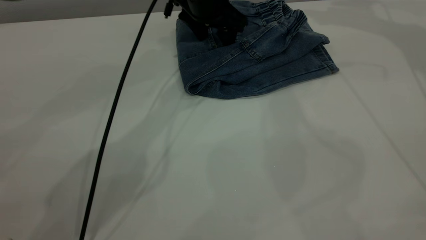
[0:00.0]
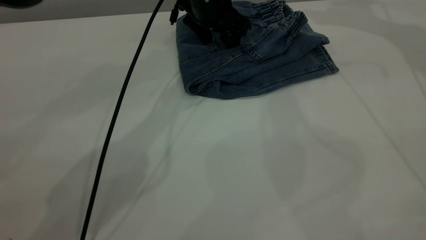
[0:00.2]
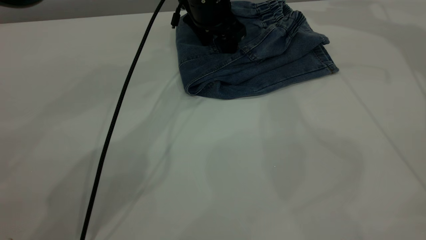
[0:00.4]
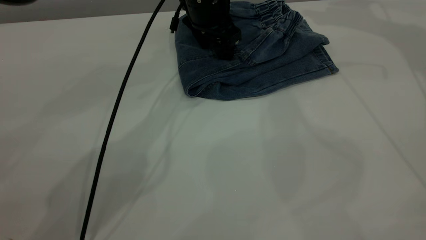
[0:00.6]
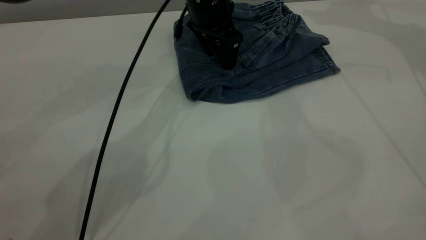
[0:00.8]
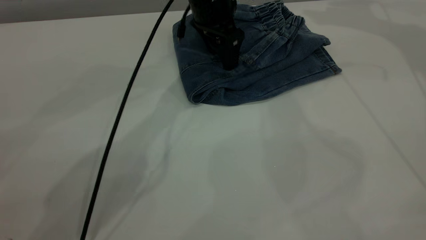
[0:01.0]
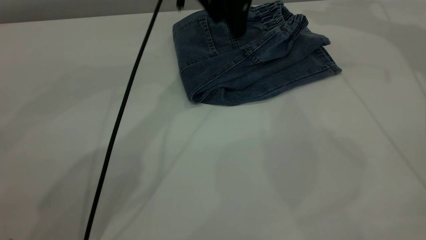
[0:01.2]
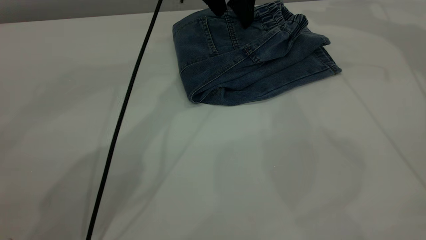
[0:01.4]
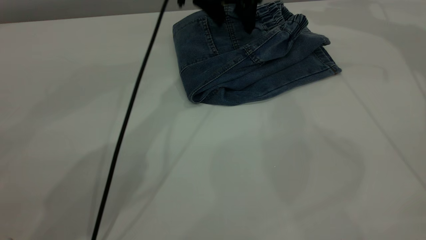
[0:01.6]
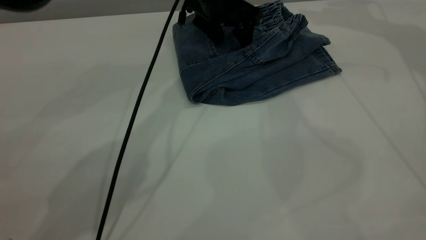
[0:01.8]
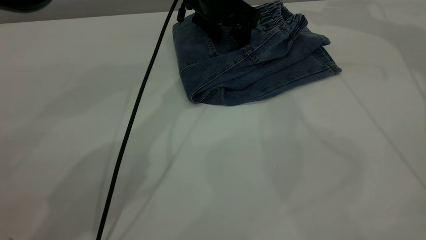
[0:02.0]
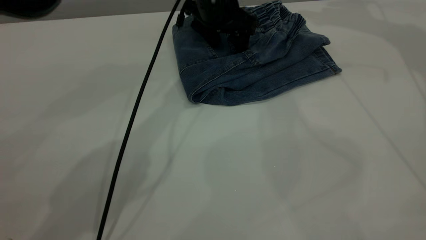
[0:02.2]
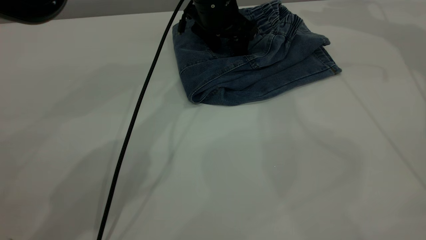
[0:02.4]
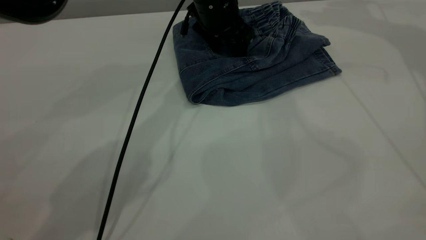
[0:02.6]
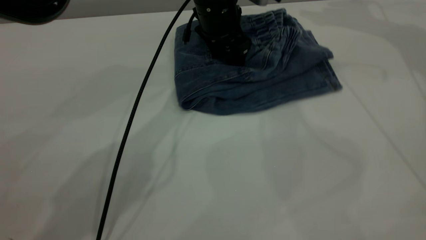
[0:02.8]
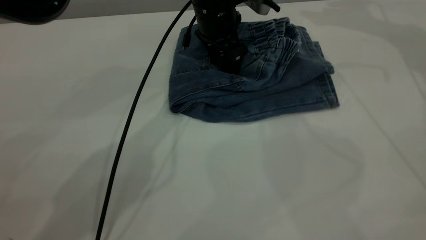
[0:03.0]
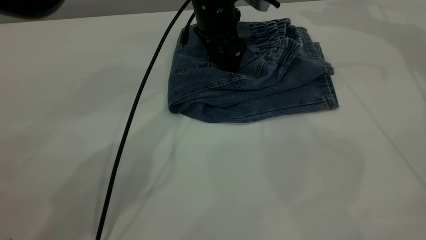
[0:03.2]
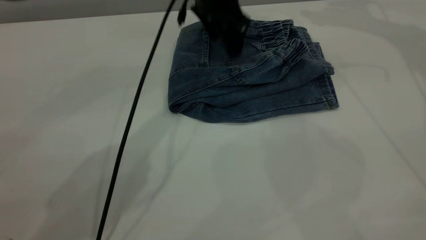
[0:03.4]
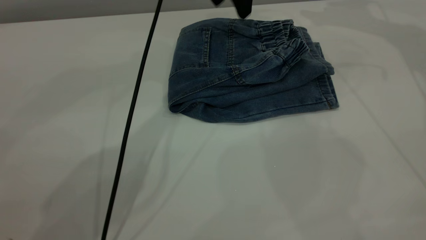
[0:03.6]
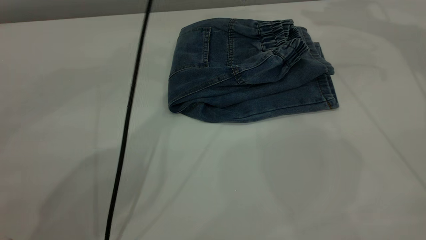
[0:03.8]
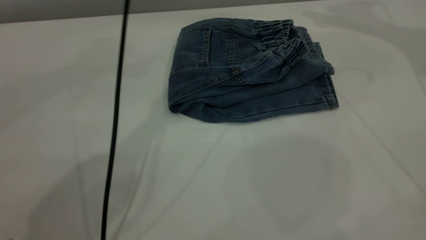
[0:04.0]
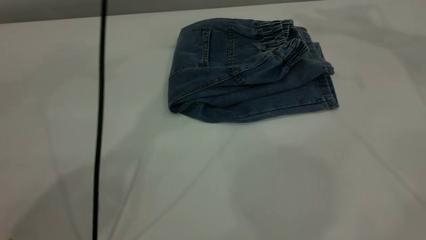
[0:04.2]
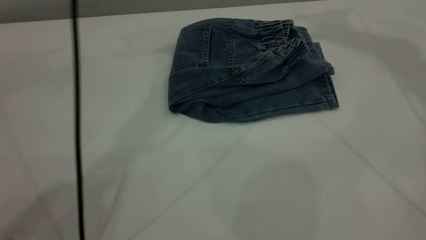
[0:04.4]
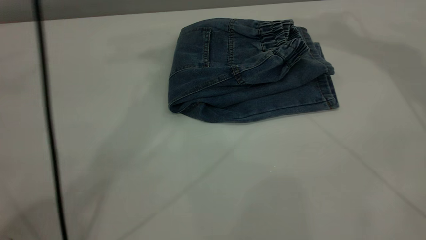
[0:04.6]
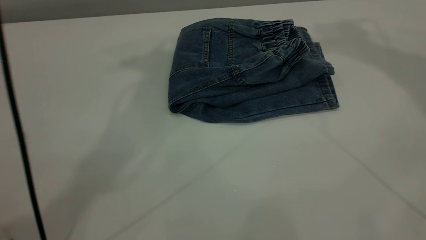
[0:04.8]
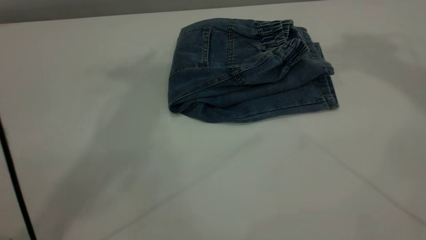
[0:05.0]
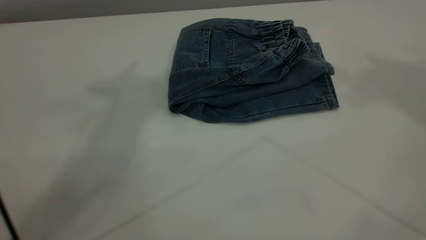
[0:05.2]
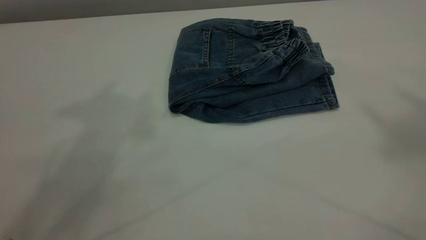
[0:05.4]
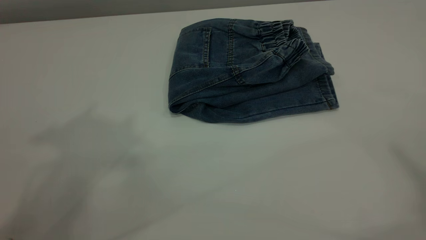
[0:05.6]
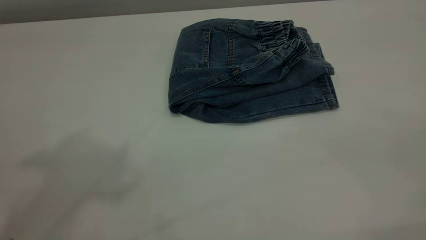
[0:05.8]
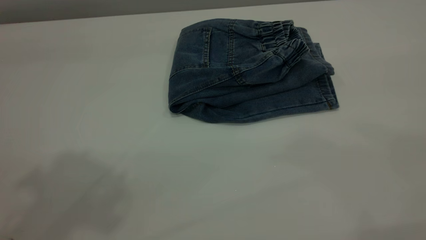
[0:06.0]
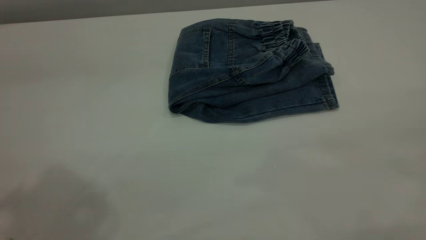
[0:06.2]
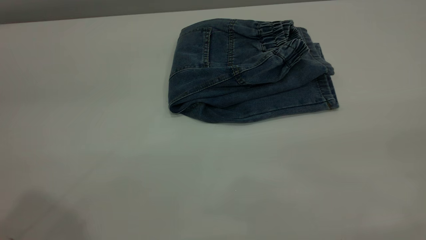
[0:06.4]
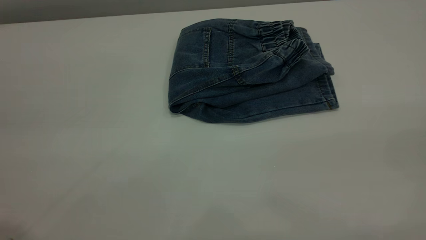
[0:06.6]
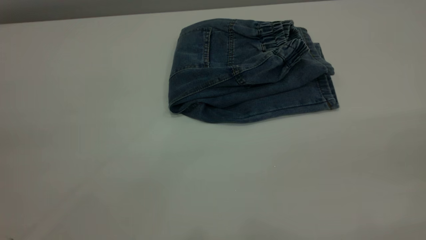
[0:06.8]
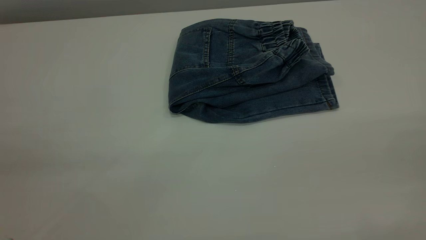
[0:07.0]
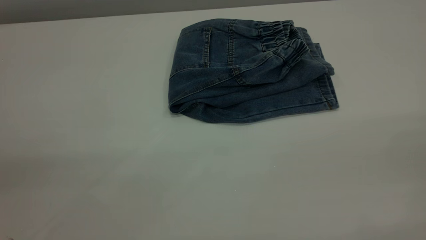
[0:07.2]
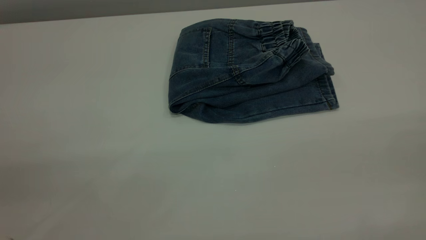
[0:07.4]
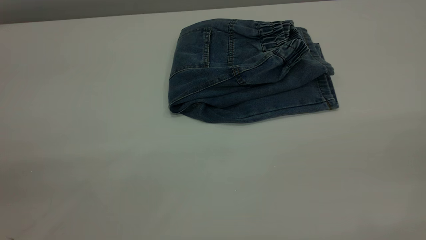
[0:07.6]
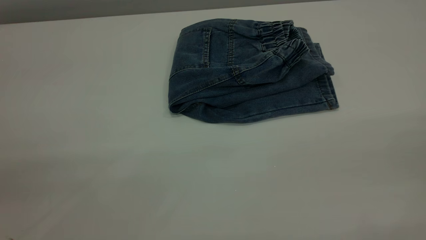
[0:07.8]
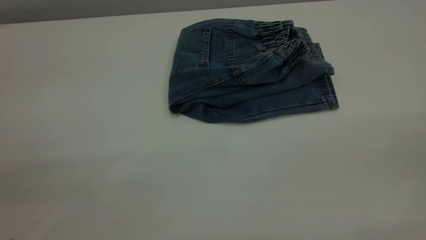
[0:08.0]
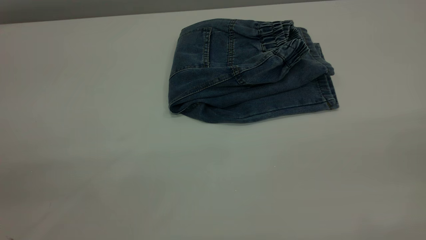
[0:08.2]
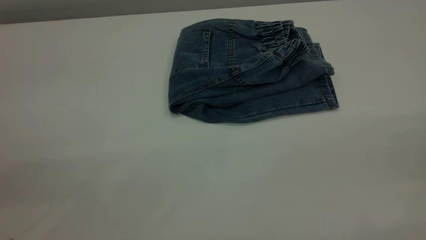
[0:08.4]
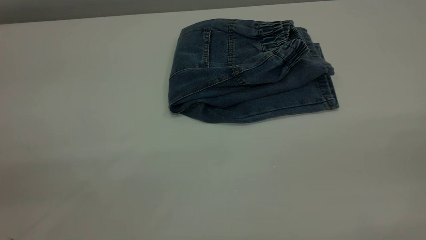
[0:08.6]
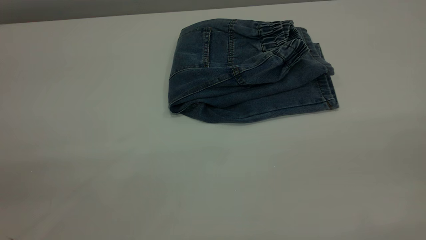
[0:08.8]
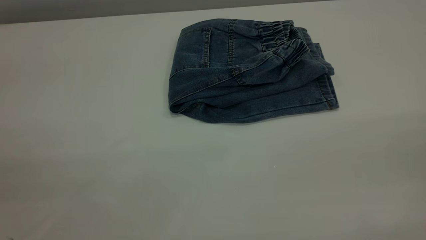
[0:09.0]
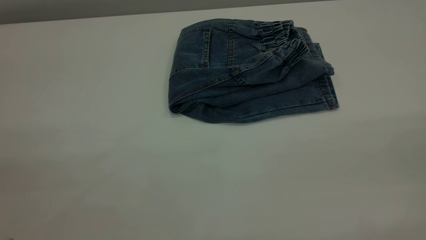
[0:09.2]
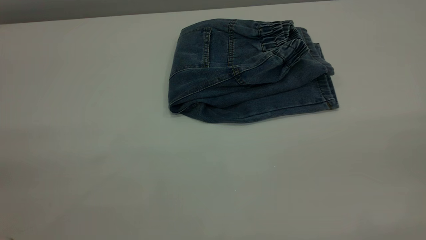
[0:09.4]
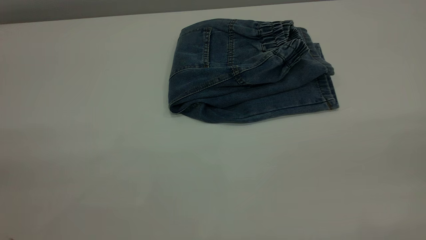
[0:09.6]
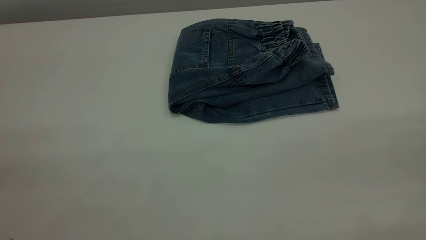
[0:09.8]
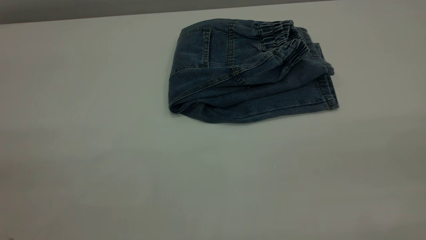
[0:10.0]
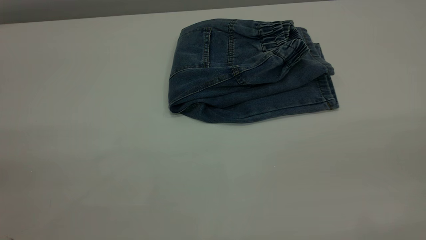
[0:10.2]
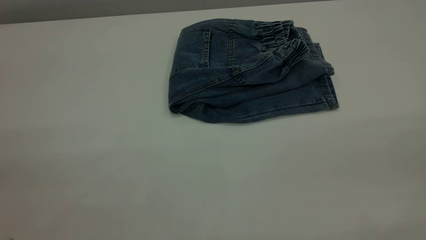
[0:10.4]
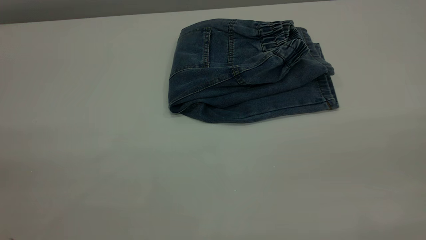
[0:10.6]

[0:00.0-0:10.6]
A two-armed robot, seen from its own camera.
0:01.6 to 0:03.0: The left gripper moves about 5 cm.
0:03.0 to 0:04.6: The right gripper is displaced upward, backward and to the left by roughly 15 cm. Meanwhile the left gripper is displaced upward by some 40 cm.
0:04.6 to 0:06.0: The left gripper travels backward and to the left by approximately 25 cm.

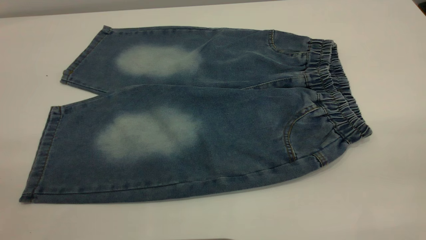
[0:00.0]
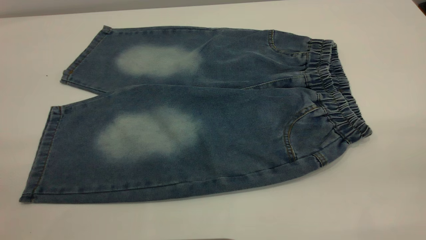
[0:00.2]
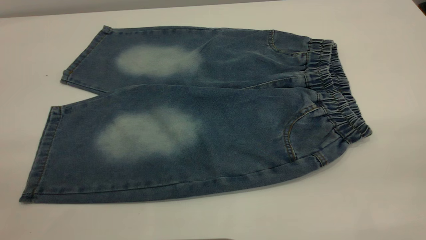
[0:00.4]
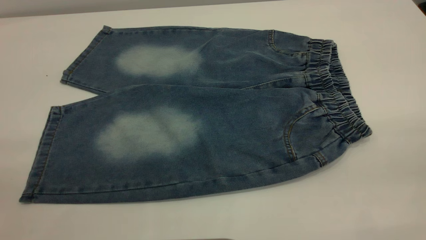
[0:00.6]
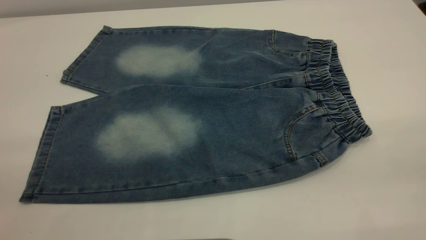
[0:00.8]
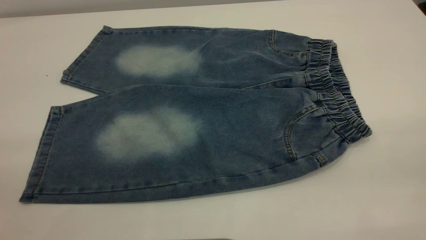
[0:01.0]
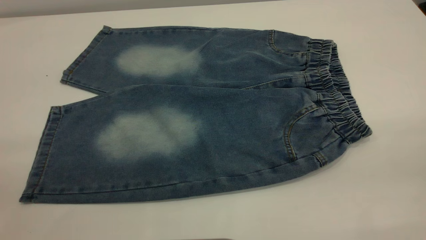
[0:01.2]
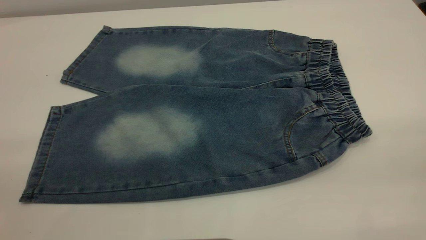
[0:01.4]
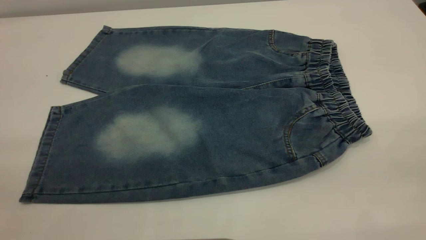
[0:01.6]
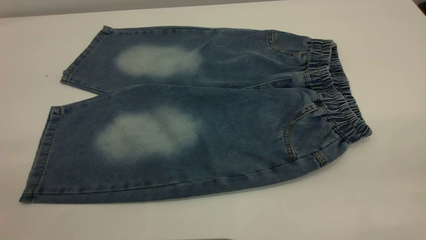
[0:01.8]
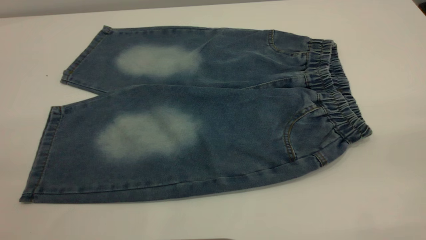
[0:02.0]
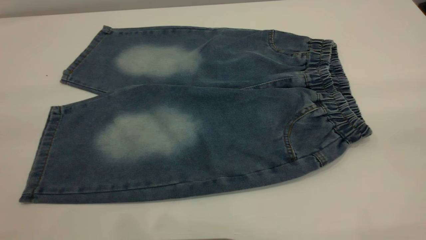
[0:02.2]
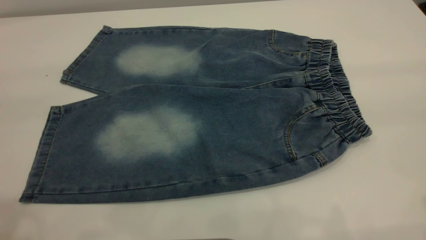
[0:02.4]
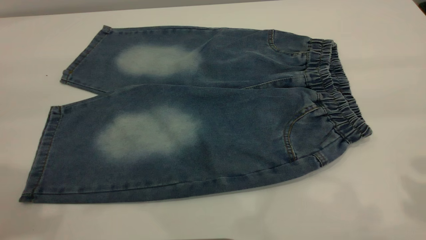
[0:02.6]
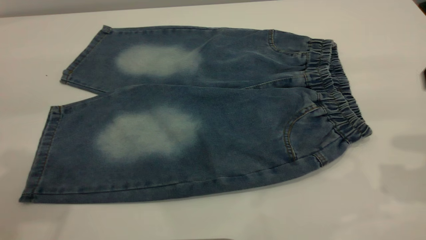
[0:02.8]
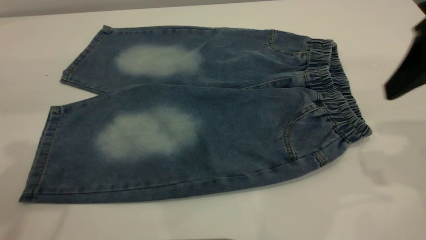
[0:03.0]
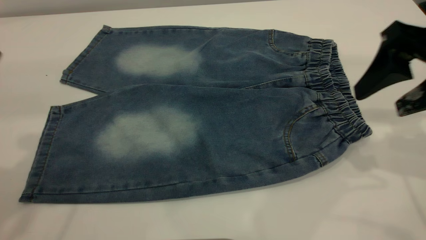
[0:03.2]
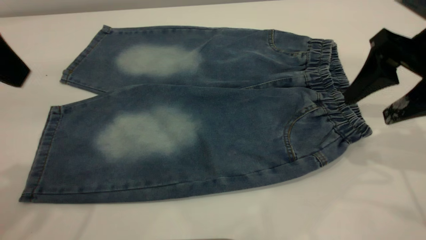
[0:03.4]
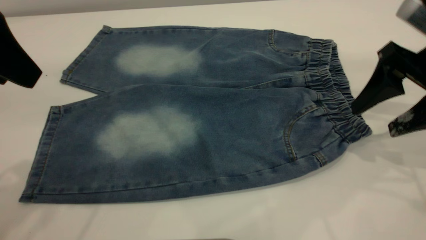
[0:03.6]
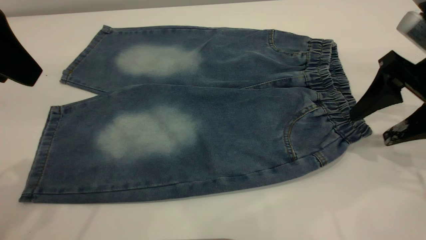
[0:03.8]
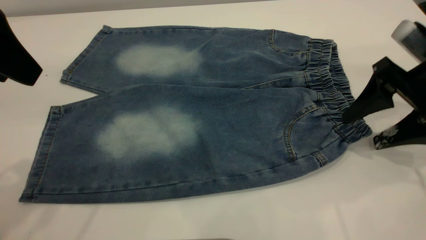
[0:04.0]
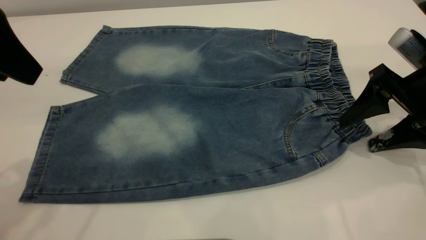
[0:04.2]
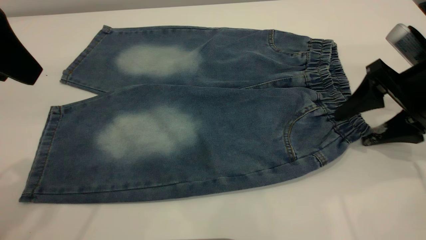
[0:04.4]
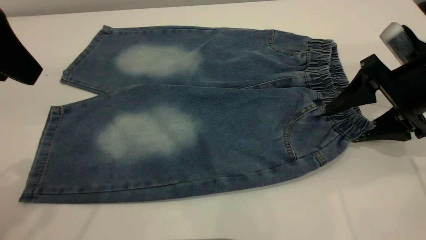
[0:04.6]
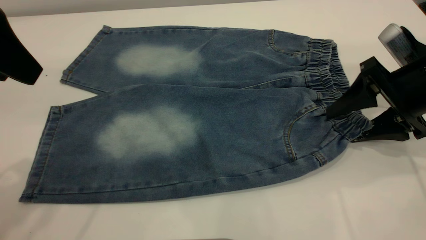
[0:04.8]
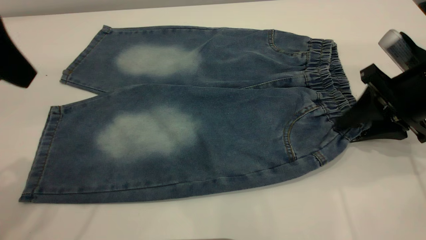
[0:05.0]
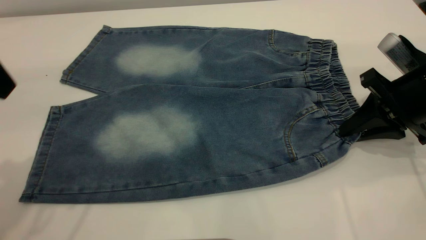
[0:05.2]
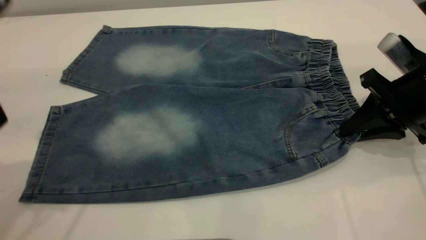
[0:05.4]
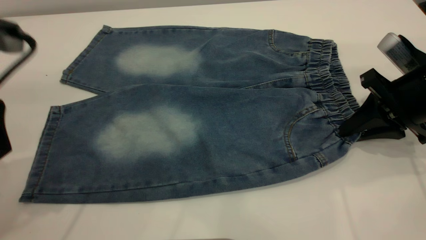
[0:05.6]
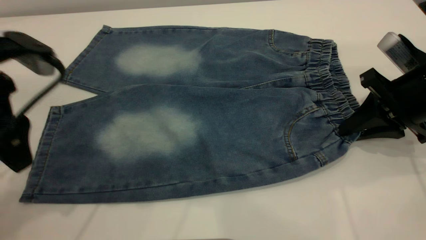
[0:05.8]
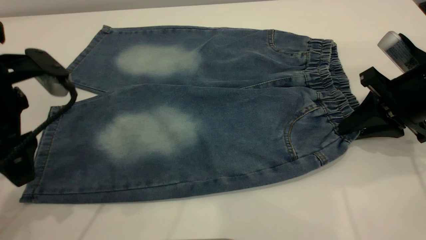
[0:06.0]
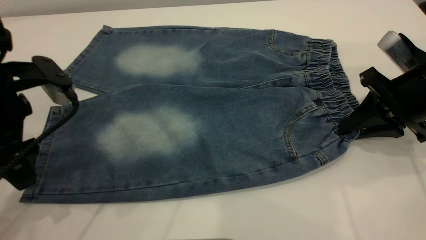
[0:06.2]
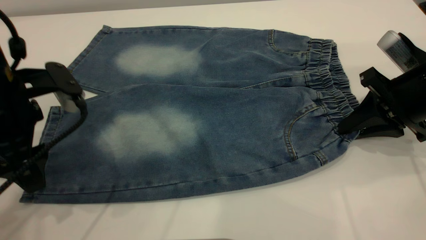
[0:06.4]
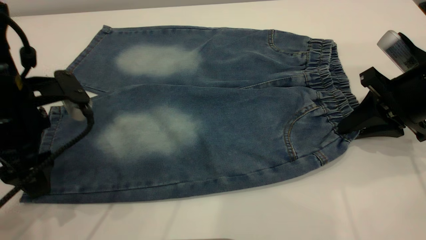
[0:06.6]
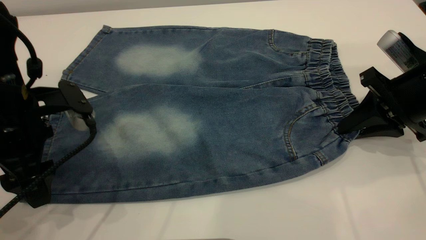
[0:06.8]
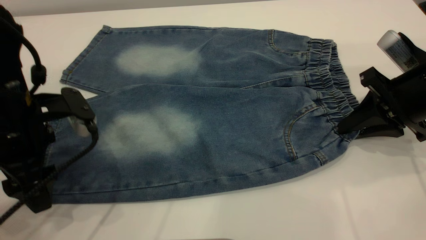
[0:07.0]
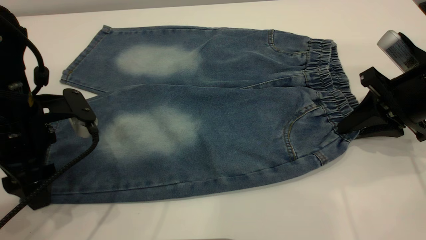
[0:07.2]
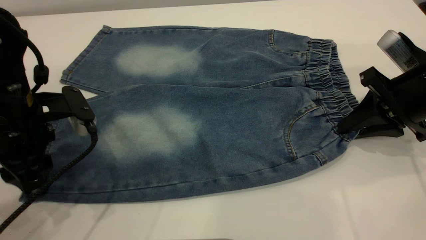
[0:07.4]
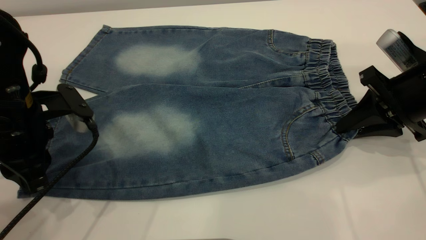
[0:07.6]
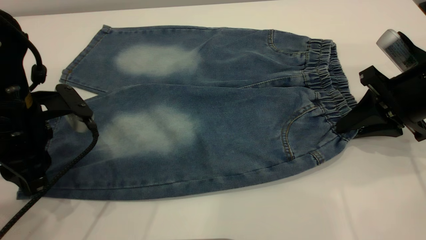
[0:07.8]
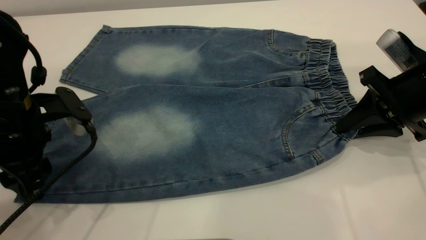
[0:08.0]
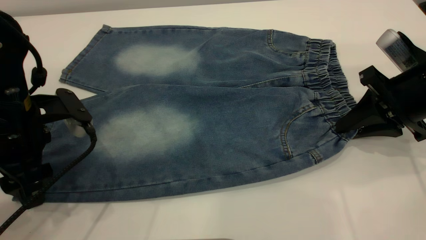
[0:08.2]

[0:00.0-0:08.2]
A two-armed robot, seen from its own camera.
0:00.0 to 0:01.6: Both grippers stay put.
0:01.6 to 0:03.2: The right gripper shifts approximately 30 cm forward and downward.
0:03.2 to 0:05.0: The right gripper shifts about 10 cm downward, and closes its fingers.
0:05.0 to 0:06.6: The left gripper heads downward, covering some 15 cm.
0:06.6 to 0:08.2: The left gripper closes, then reopens.
